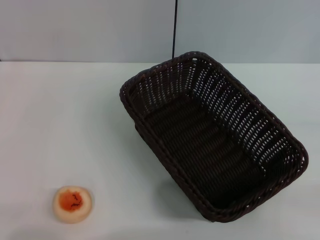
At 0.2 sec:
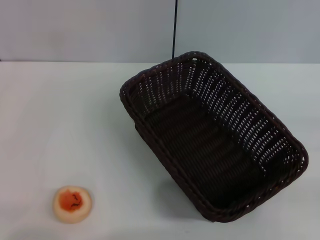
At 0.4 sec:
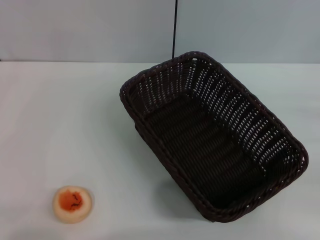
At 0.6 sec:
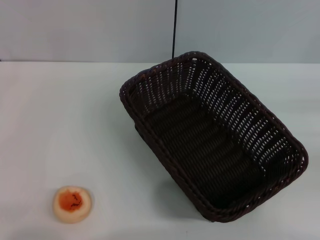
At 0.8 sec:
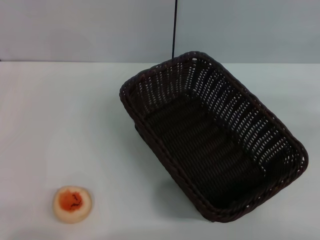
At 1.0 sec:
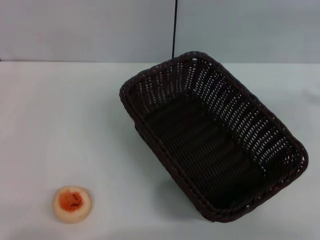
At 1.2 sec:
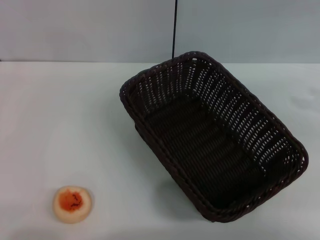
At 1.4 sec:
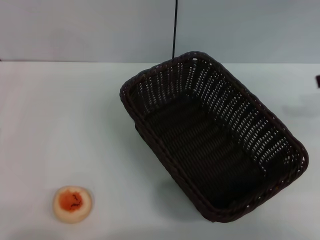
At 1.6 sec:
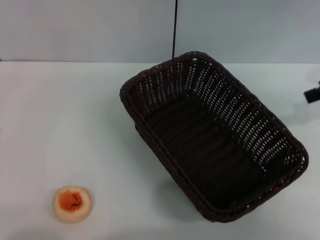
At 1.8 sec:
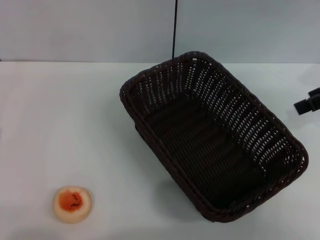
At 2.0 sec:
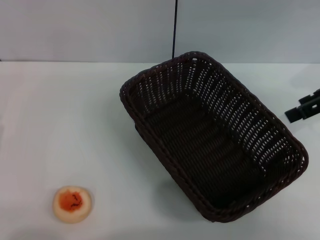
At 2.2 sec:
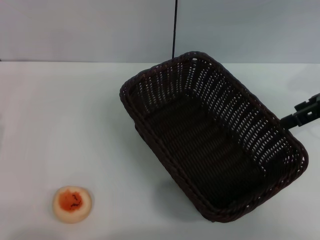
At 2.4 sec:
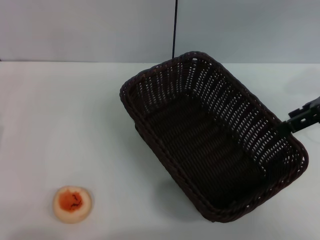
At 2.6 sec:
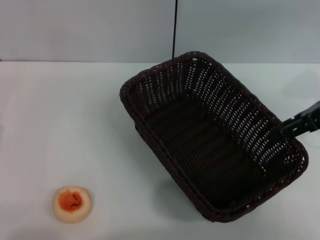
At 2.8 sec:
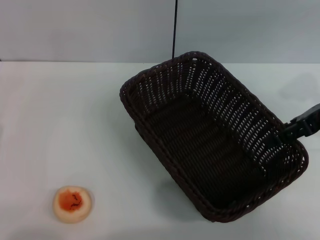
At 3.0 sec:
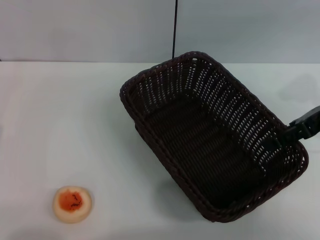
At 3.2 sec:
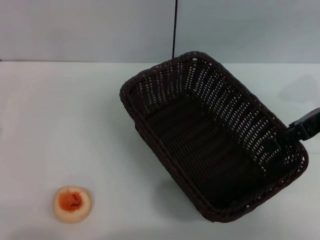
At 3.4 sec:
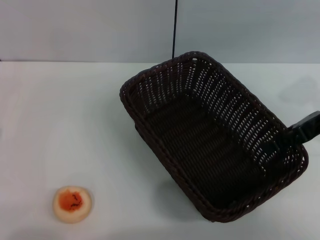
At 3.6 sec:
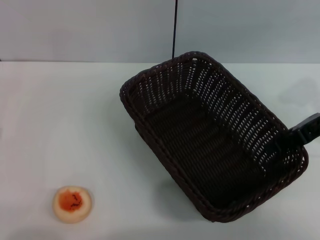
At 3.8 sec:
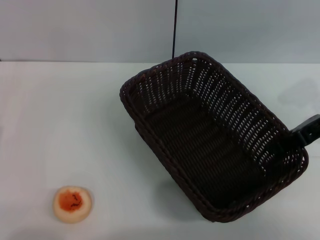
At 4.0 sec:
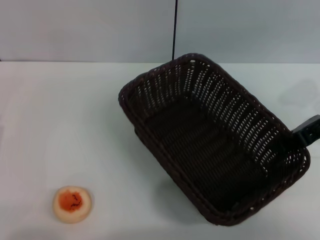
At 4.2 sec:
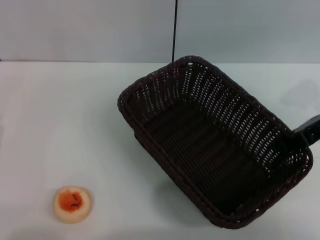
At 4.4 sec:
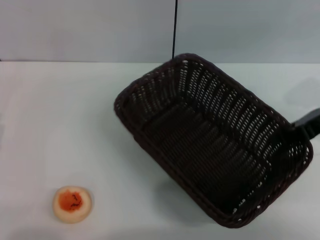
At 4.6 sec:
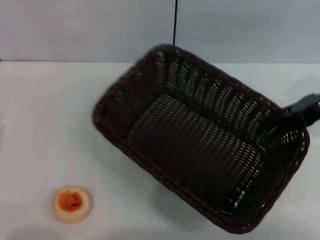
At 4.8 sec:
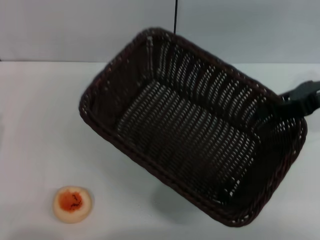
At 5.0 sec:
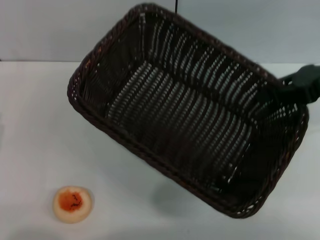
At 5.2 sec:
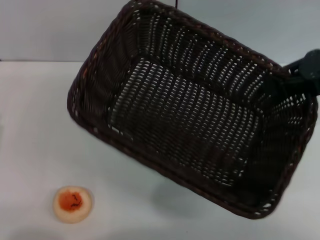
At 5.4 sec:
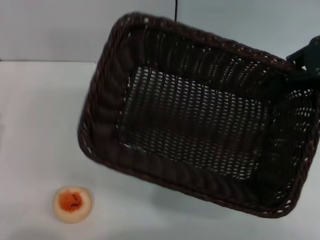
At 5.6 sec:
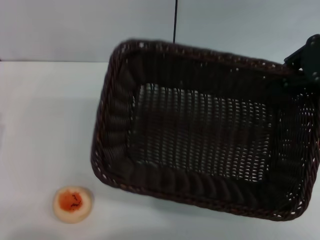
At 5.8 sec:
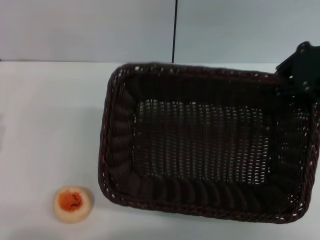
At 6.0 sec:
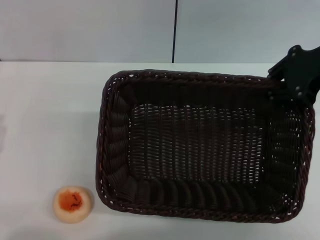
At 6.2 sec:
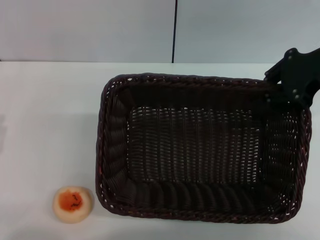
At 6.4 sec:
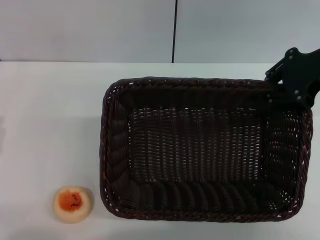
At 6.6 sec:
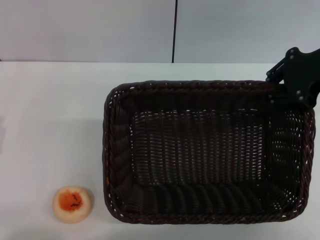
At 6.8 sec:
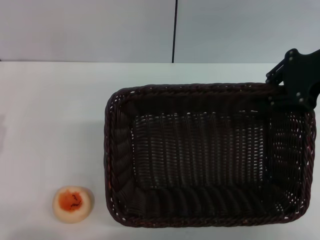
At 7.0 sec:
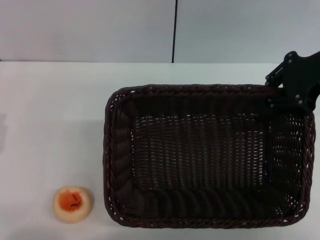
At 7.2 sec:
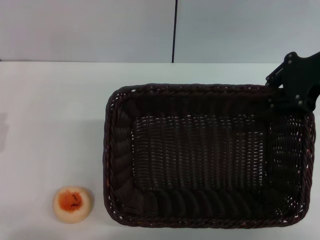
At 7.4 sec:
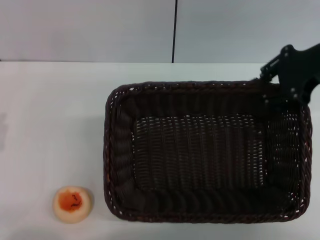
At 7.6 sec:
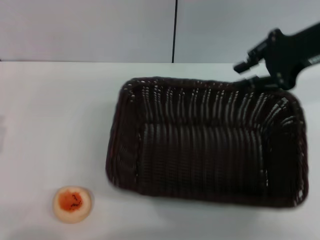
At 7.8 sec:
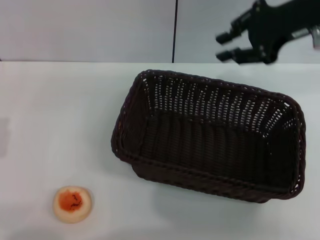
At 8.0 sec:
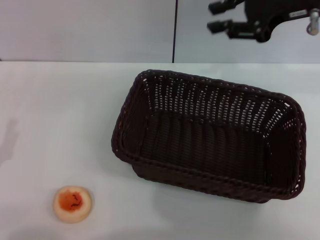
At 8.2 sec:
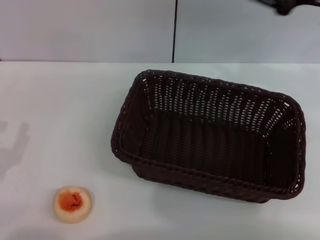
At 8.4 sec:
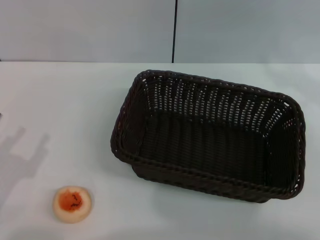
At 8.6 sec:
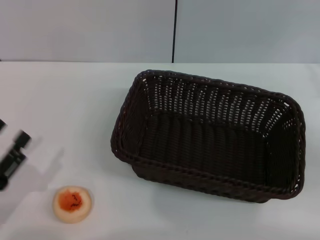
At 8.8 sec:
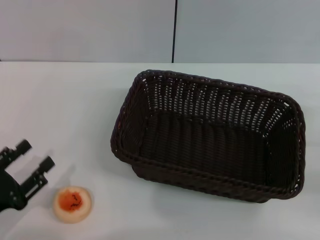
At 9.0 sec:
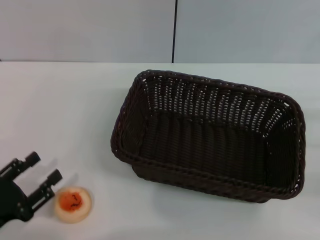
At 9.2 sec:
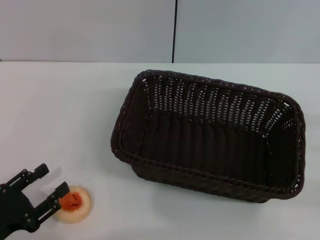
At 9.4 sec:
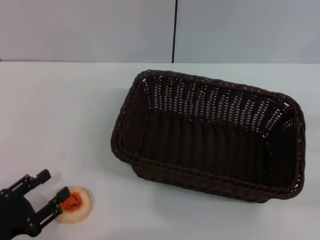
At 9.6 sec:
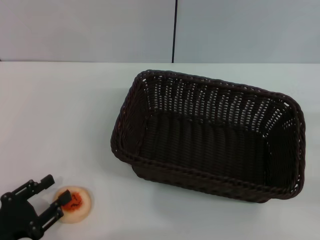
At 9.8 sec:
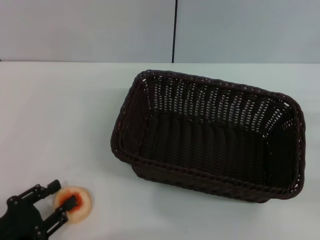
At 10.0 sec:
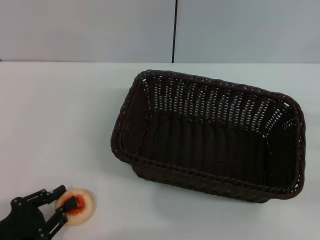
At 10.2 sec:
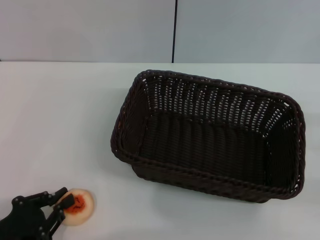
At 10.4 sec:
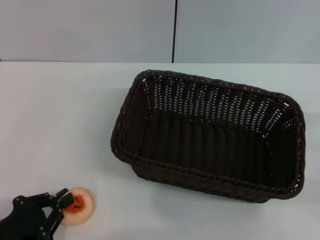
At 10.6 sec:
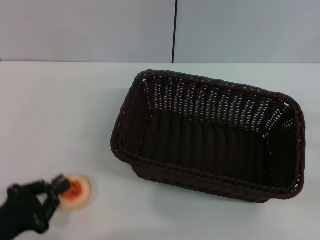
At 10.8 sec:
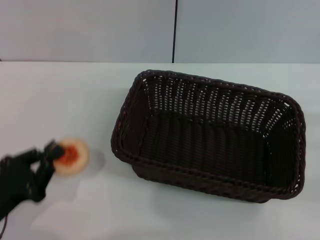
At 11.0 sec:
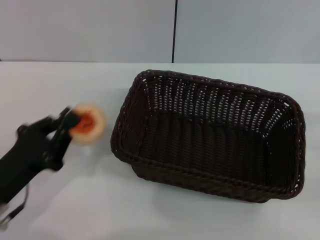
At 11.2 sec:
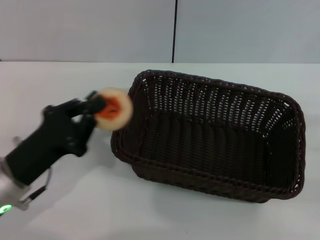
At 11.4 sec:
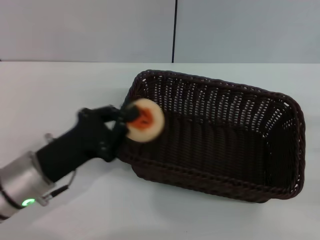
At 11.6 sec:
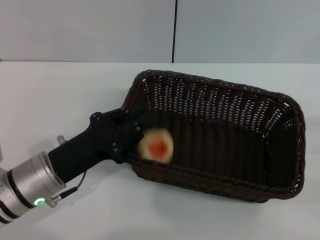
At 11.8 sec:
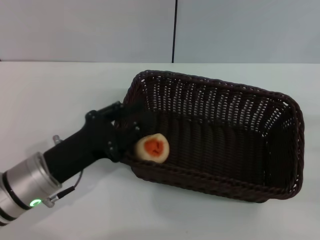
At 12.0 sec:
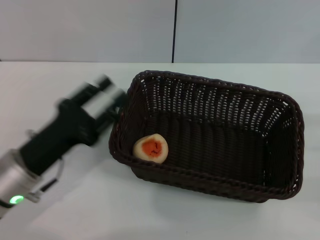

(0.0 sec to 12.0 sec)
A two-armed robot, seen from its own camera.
Step, 0.0 sec - 7.6 sec: Move the basket to the center of view with the right gripper.
Step, 8.0 sec - 10.6 sec: Pick up the egg yolk pastry with the left gripper.
Step, 11.0 sec - 11.8 sec: Place the egg yolk pastry into the basket with the left gripper.
0.0 sec - 1.6 sec: The right gripper shifts some 25 cm upward, forward and to the left, and opens up.
1.6 sec - 3.0 sec: The right gripper is displaced downward by about 5 cm.
3.0 sec - 4.4 sec: The right gripper closes.
4.4 sec - 6.0 sec: The right gripper travels upward by roughly 5 cm.
6.0 sec - 7.6 sec: The grippers move only a little.
7.6 sec - 9.0 sec: The right gripper shifts about 30 cm downward, to the right and backward.
9.0 sec - 10.4 sec: The left gripper closes.
10.4 sec - 12.0 sec: The left gripper heads forward and to the right, covering about 15 cm.

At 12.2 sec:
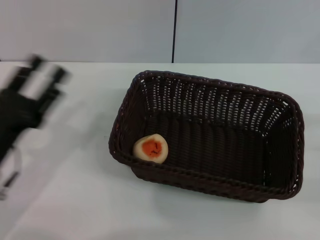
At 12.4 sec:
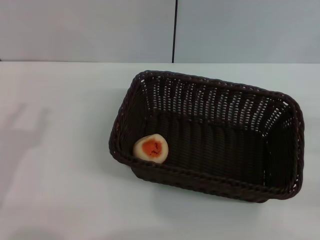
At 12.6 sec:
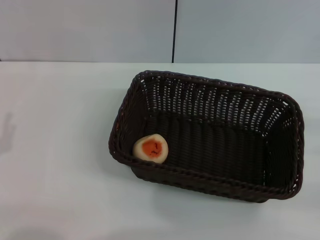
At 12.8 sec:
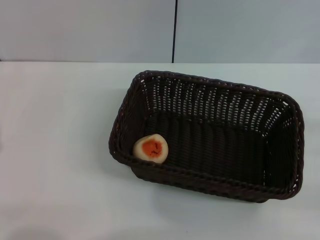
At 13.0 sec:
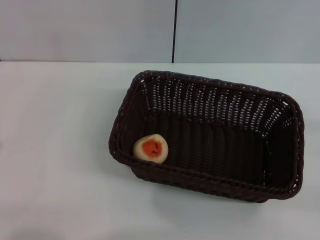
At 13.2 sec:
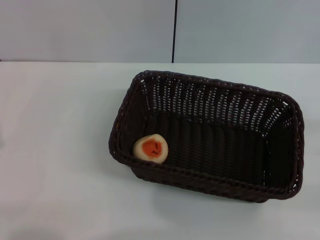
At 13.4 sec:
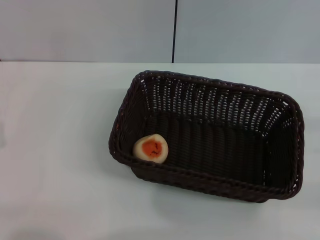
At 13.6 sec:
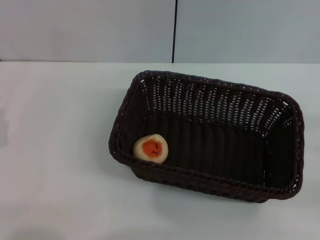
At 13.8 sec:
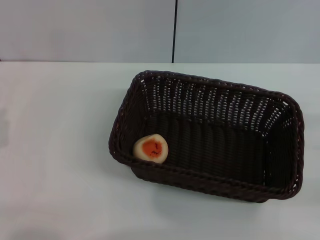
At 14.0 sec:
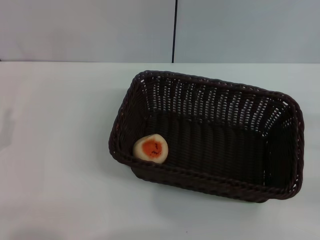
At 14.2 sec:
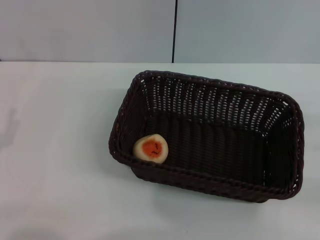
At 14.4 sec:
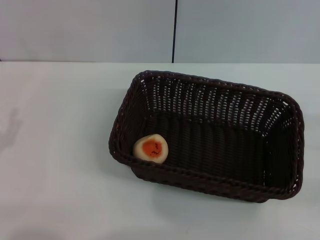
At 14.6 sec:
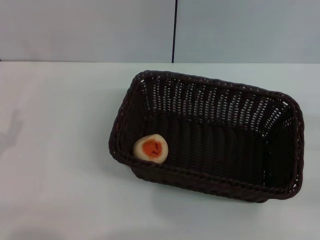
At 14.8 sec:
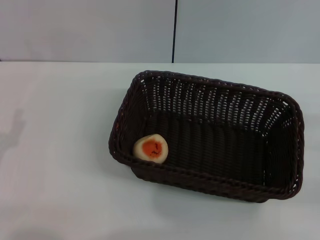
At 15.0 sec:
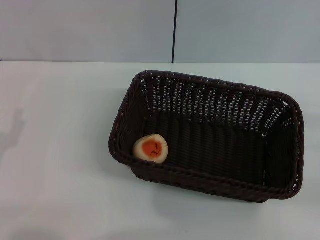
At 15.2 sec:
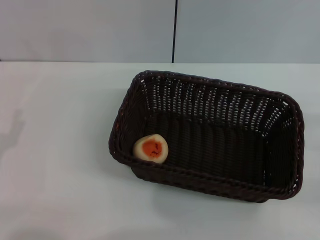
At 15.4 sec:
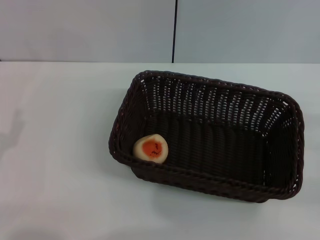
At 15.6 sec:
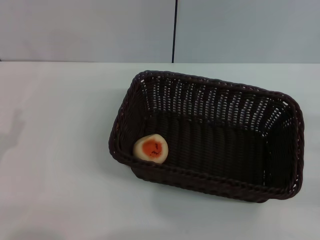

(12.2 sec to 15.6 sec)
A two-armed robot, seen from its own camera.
12.2 sec - 13.8 sec: The left gripper shifts about 5 cm to the left, and closes, then opens again.
